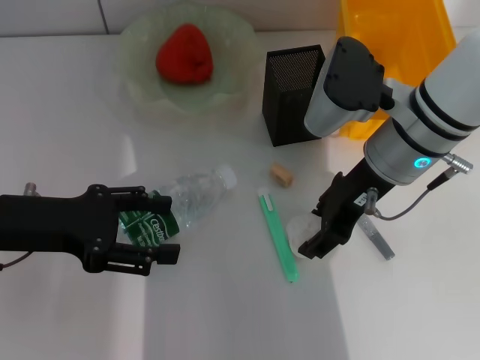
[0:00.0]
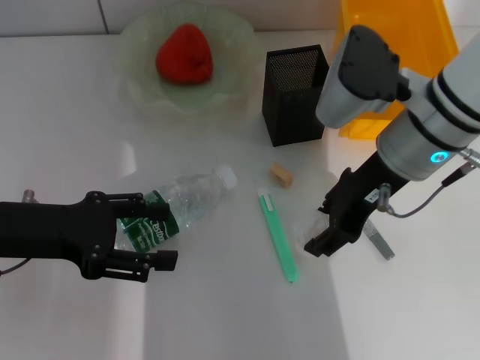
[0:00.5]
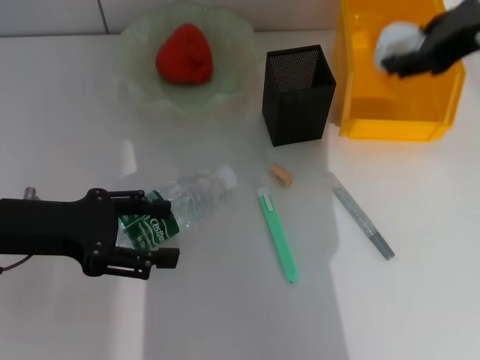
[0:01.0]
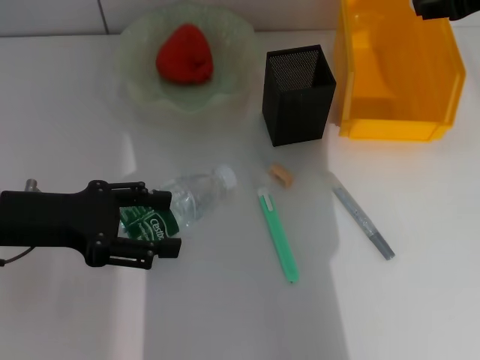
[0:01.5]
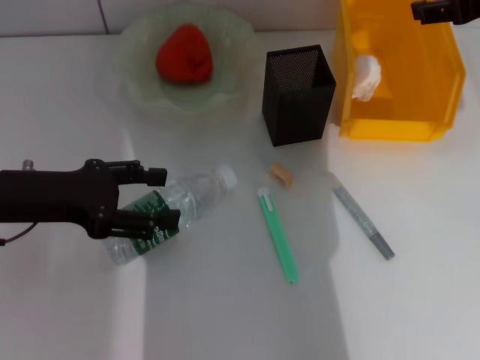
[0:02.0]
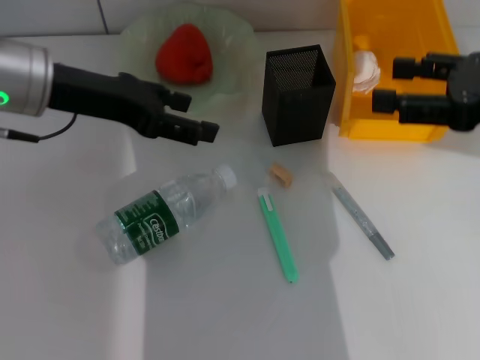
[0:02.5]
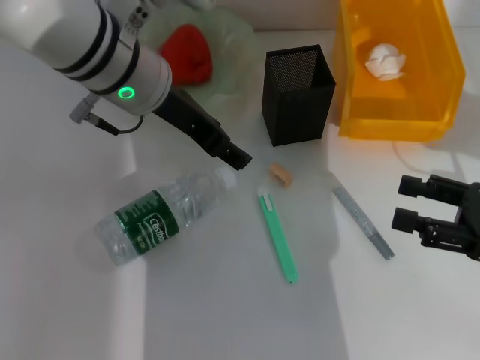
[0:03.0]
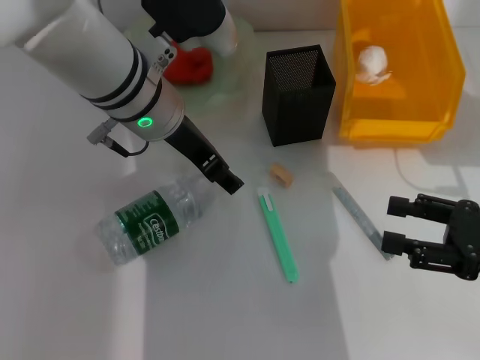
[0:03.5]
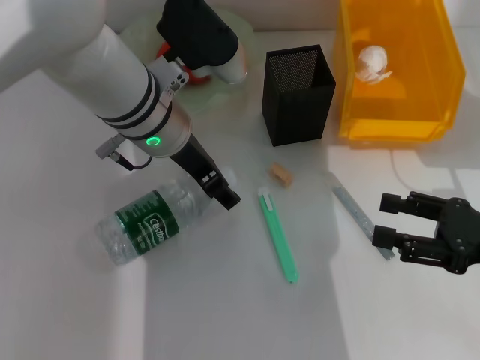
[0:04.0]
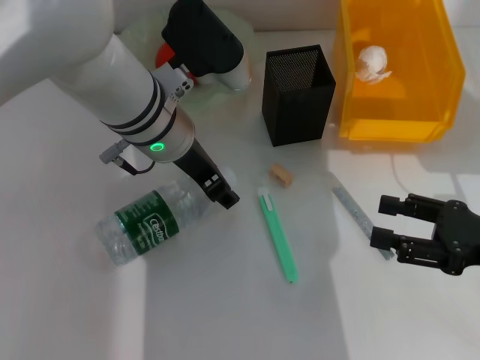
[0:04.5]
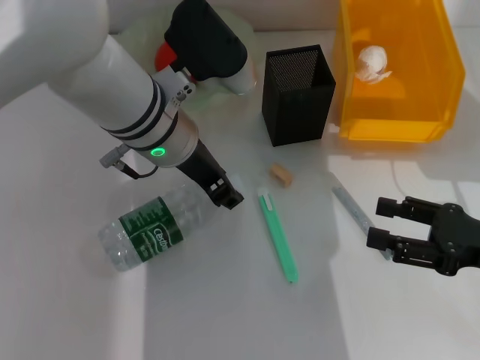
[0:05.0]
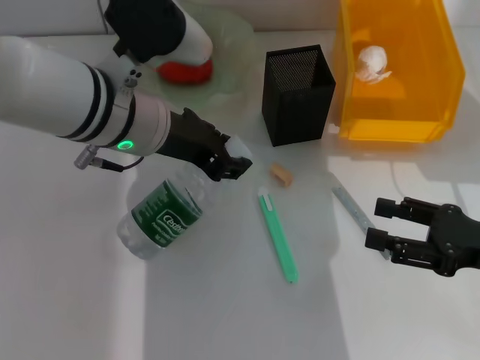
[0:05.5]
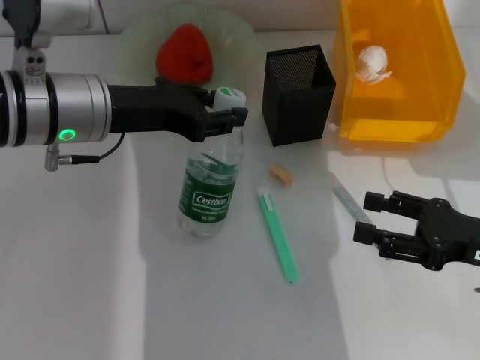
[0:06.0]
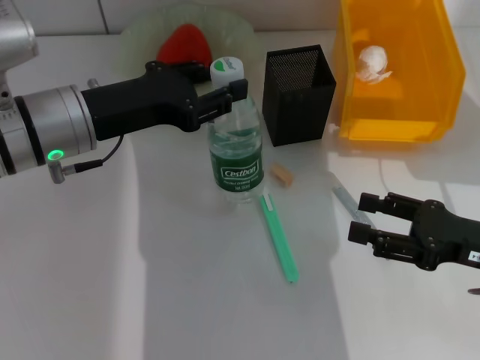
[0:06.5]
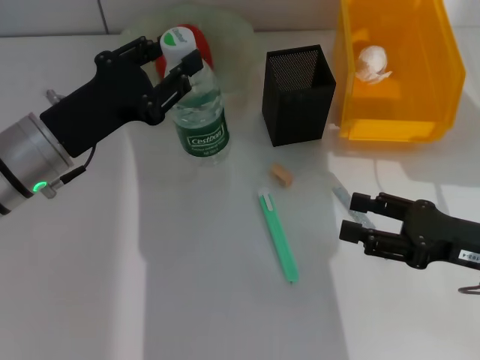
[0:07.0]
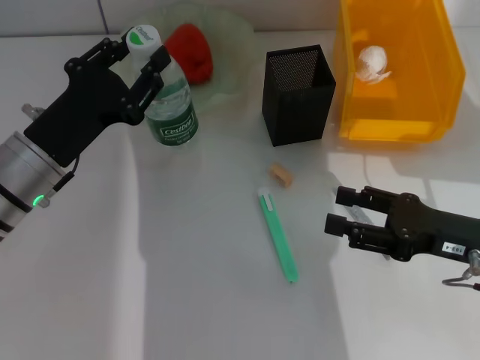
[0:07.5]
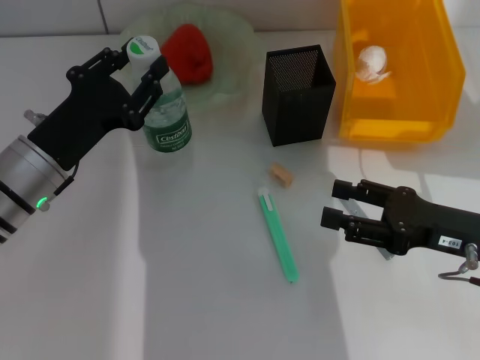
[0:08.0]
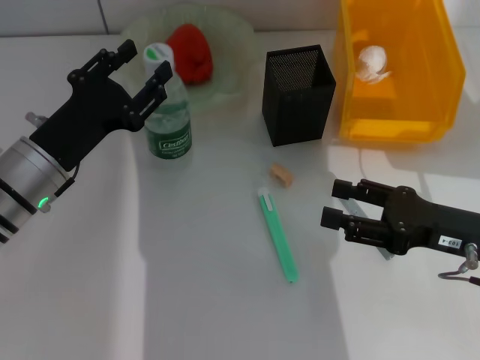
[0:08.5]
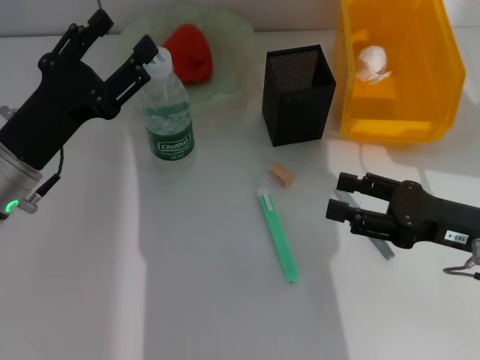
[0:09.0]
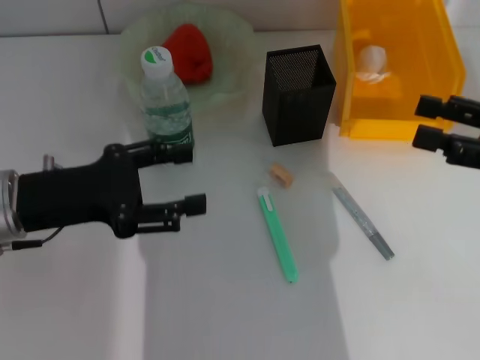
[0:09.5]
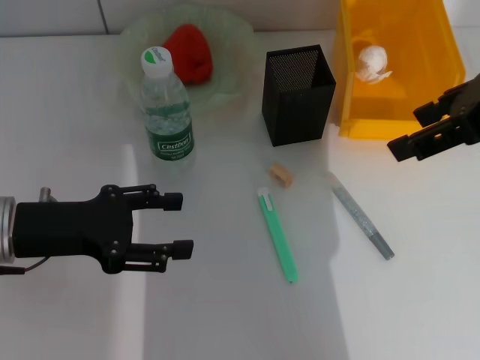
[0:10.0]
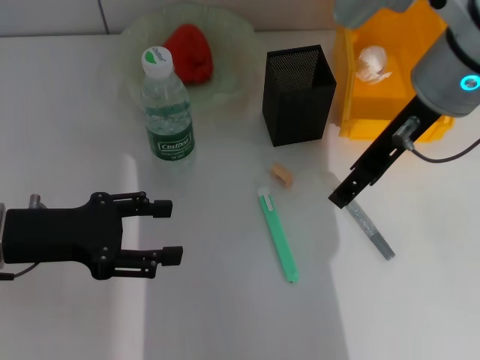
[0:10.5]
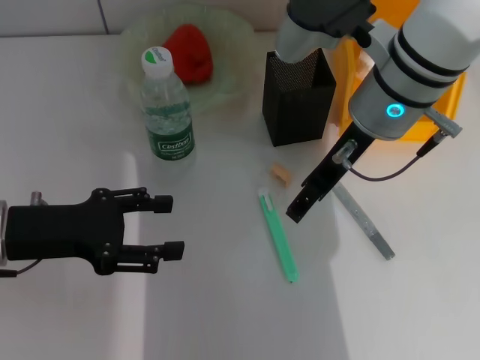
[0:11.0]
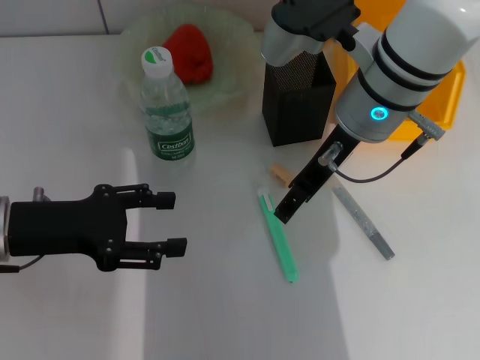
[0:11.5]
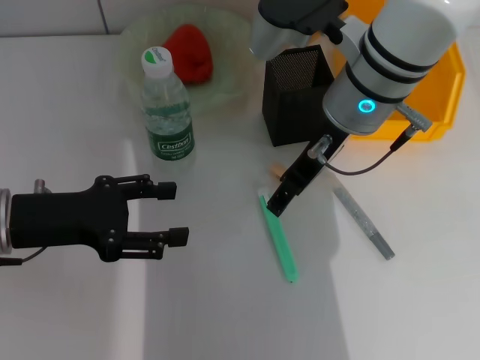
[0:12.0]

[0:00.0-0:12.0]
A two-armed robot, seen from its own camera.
Step, 0:00.5 to 0:01.5: Place the paper ball into the trash can with the right hand.
Step, 0:02.0 to 0:04.5: Grab the water bottle with the left hand.
Step, 0:05.0 to 0:08.5: Place the water bottle on the table with the left hand.
0:00.0 to 0:02.0: The right gripper goes roughly 15 cm to the right and upward.
0:02.0 to 0:04.0: The right gripper moves downward and backward, about 20 cm. The left gripper moves to the right and forward, about 20 cm.
0:04.0 to 0:06.0: The left gripper is displaced to the left by about 10 cm, and closes up.
0:06.0 to 0:08.0: The left gripper shifts approximately 10 cm downward and to the left.
0:08.0 to 0:10.0: The right gripper is displaced upward by roughly 25 cm, while the left gripper moves roughly 5 cm, and opens.
0:10.0 to 0:12.0: The right gripper shifts approximately 20 cm to the left, downward and forward.

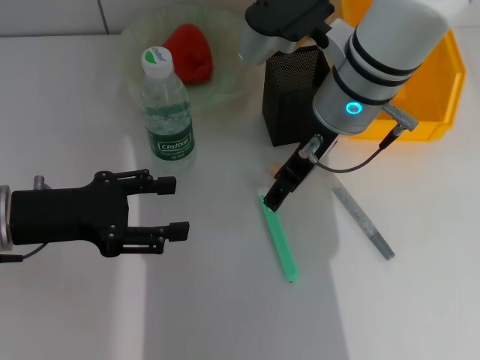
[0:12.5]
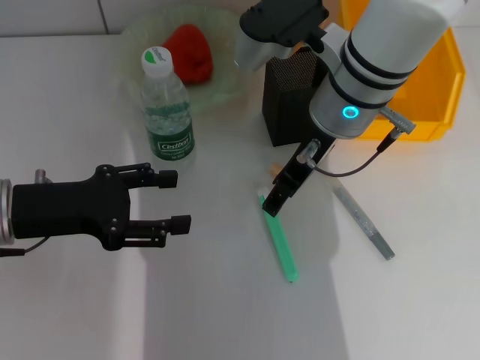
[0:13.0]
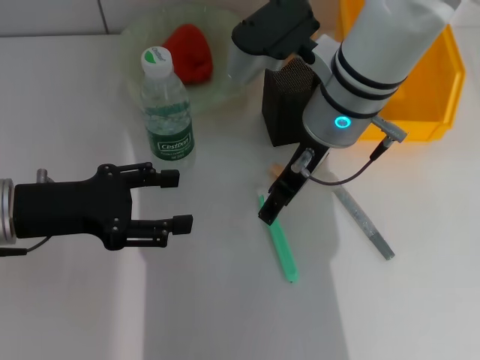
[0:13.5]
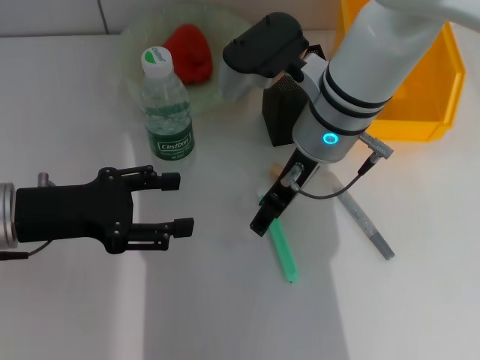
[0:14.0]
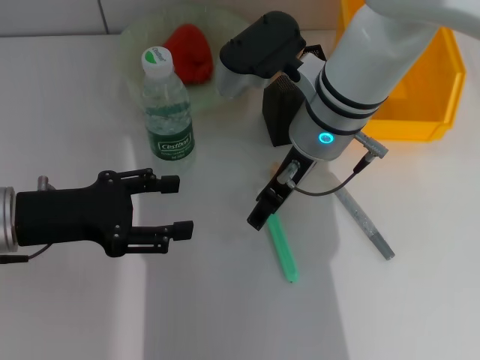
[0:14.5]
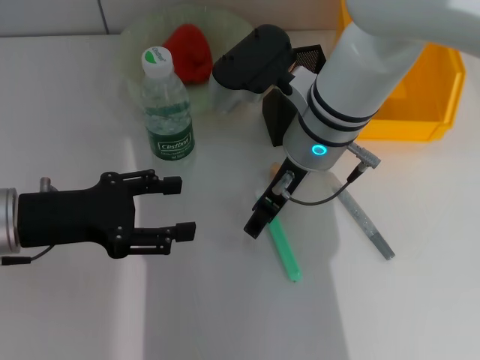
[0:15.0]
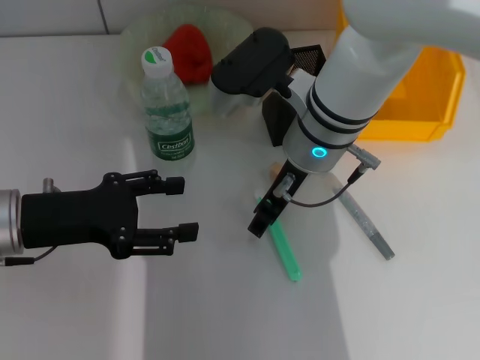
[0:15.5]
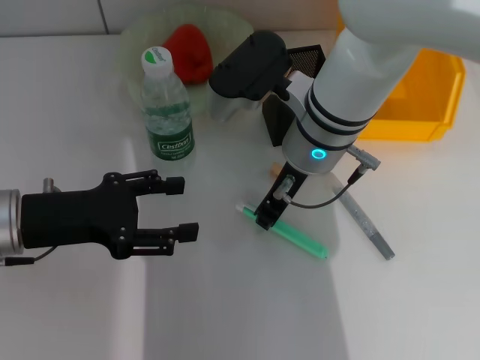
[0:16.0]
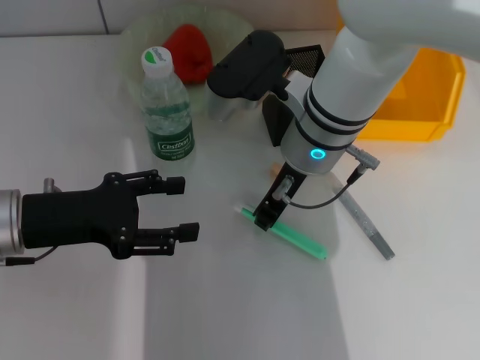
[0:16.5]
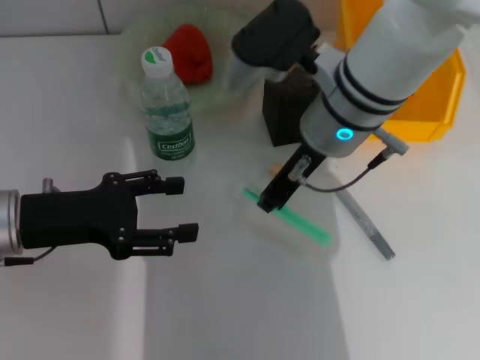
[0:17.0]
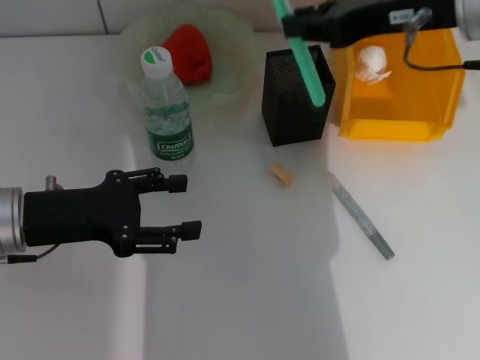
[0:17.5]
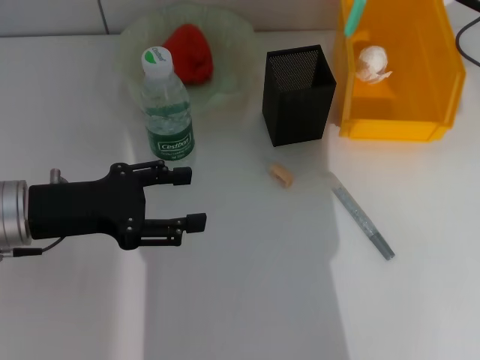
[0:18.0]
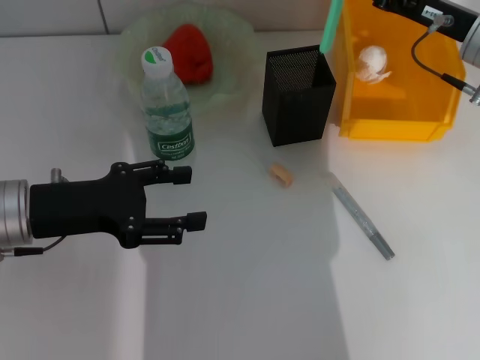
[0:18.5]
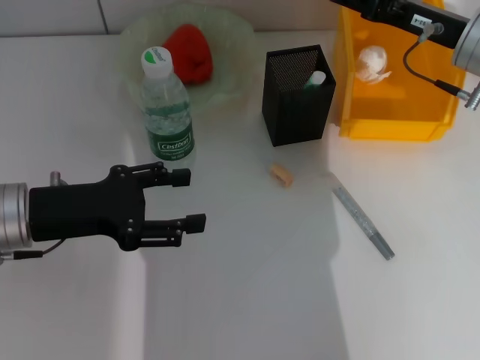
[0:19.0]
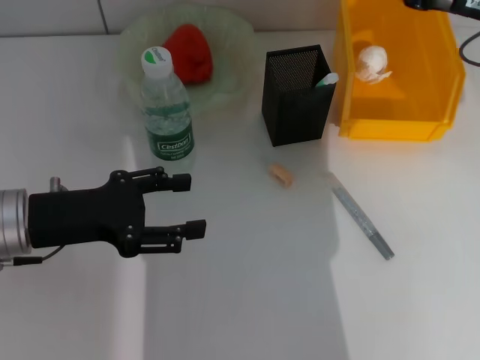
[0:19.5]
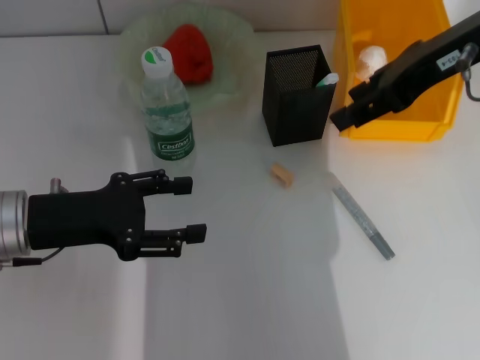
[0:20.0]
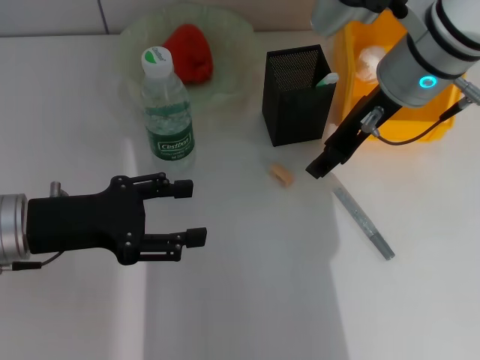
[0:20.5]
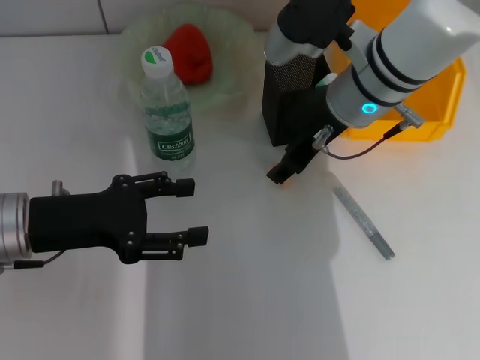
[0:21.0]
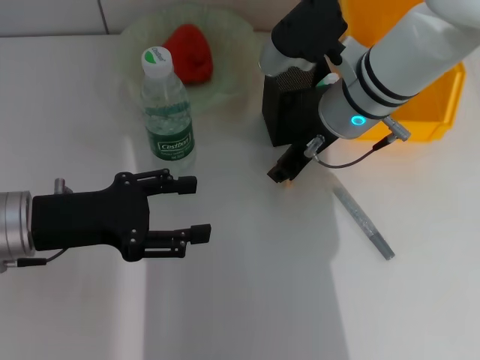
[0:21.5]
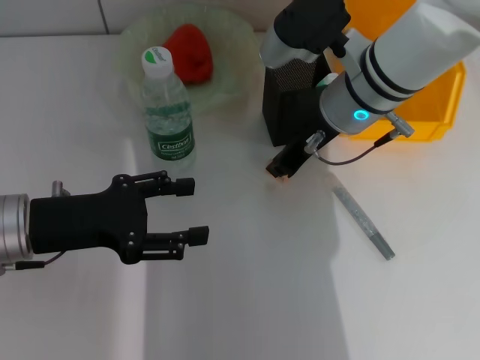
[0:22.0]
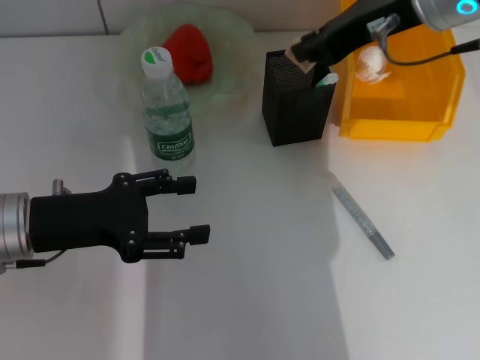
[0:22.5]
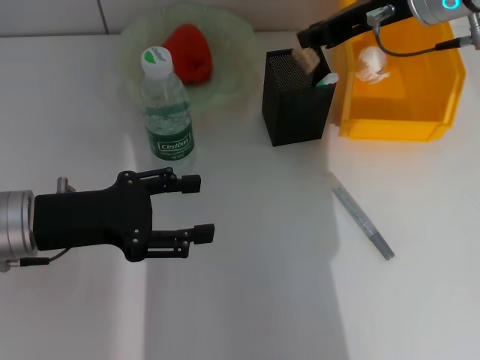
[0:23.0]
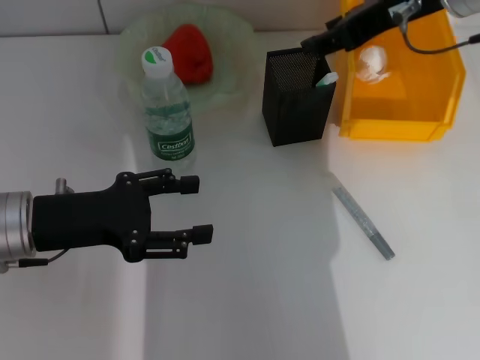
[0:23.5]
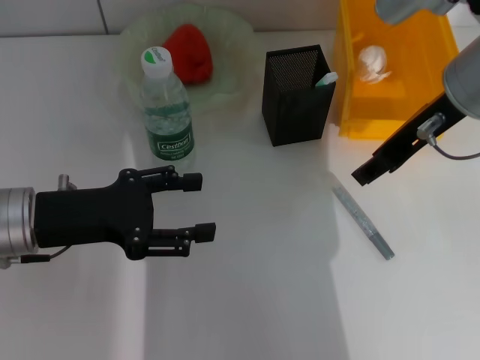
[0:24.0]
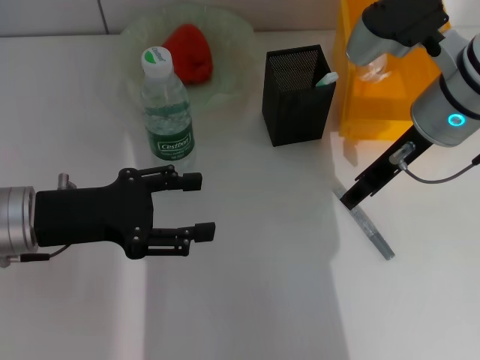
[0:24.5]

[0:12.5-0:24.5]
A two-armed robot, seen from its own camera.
Step, 0:12.5 to 0:16.5: Grab the blue utility knife with the right hand.
Step, 0:17.0 to 0:18.5: Place the blue utility knife into the pen holder with the right hand.
Step, 0:19.0 to 0:21.5: Grab the eraser with the right hand.
Step, 0:22.0 to 0:23.0: Put the eraser into the pen holder with the right hand.
0:12.5 to 0:14.5: The grippers stay close to where they were, moving slightly.
0:14.5 to 0:16.5: The right gripper closes its fingers.
0:16.5 to 0:18.5: The right gripper goes approximately 20 cm to the right.
0:18.5 to 0:20.5: The right gripper is displaced to the left by about 10 cm, and opens up.
0:20.5 to 0:22.5: The right gripper is displaced upward by some 5 cm, and closes.
0:22.5 to 0:24.5: The right gripper shifts about 10 cm downward, and opens up.

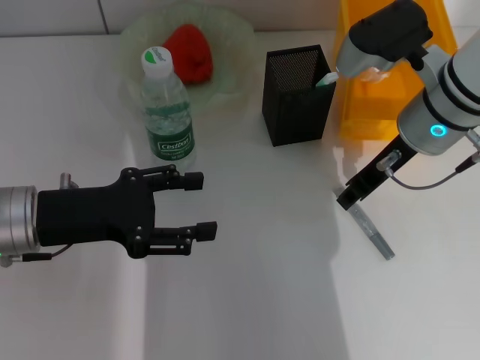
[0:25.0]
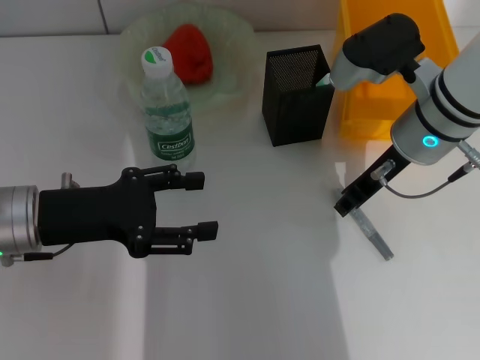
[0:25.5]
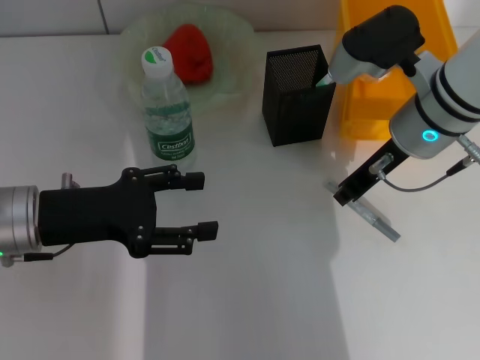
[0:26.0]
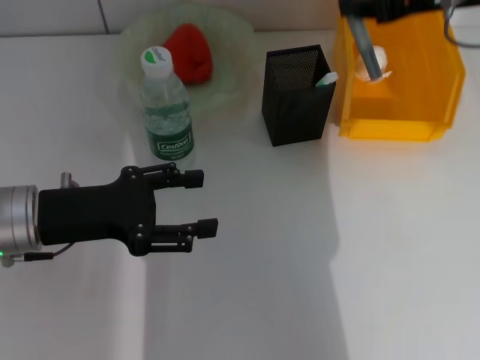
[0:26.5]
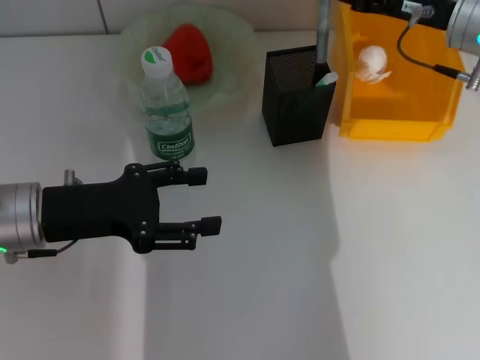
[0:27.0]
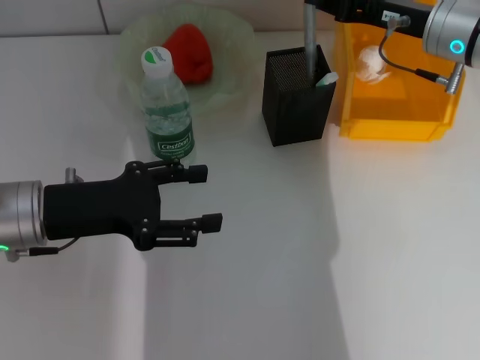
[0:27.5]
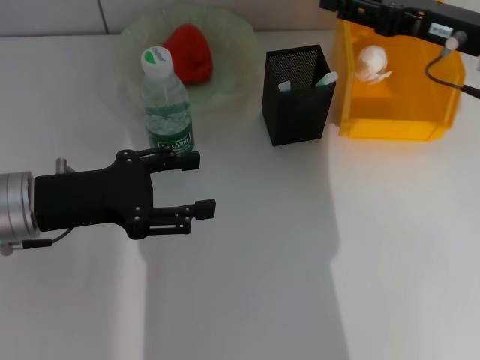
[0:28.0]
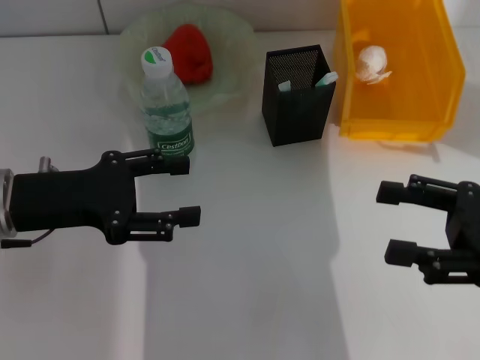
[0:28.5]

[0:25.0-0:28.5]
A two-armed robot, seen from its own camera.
Step, 0:26.0 to 0:27.5: Place the gray glue into the pen holder with the right hand.
0:25.0 to 0:27.0: The right gripper heads to the right, covering about 5 cm, reaches some 10 cm upward, then returns, and closes its fingers.
0:27.0 to 0:28.5: The right gripper travels backward by some 20 cm, and opens its fingers.
